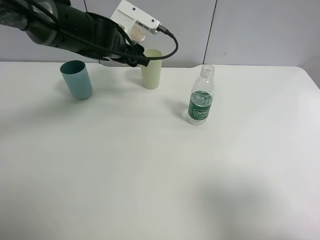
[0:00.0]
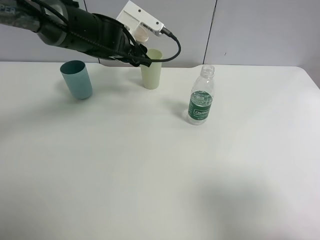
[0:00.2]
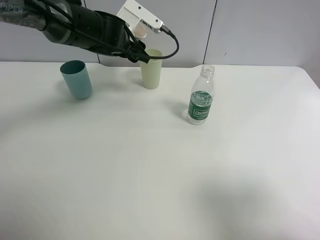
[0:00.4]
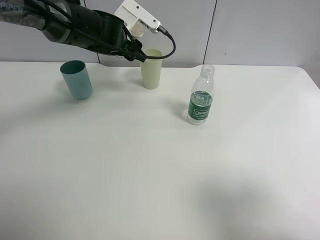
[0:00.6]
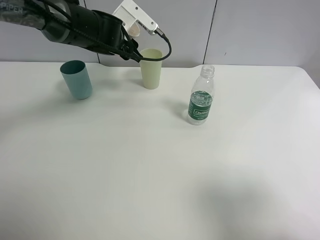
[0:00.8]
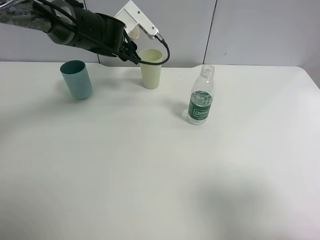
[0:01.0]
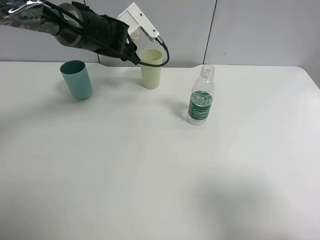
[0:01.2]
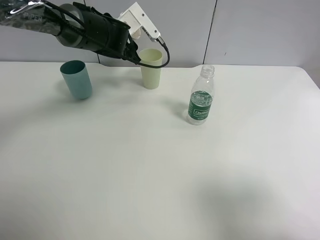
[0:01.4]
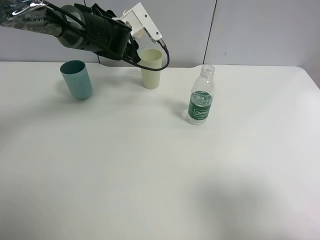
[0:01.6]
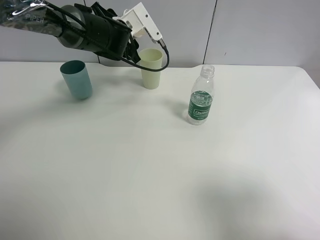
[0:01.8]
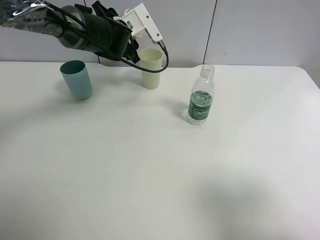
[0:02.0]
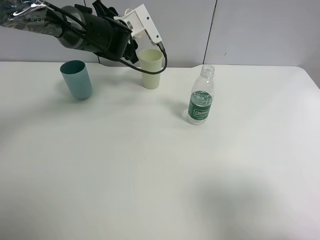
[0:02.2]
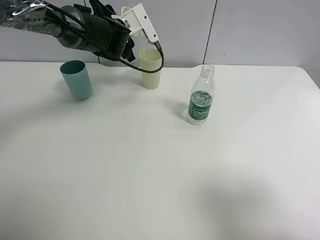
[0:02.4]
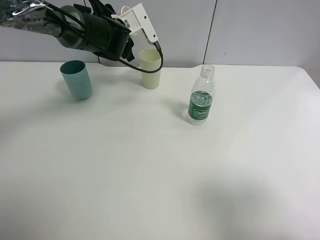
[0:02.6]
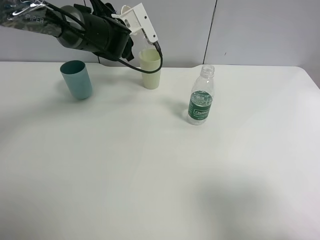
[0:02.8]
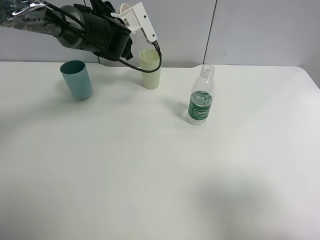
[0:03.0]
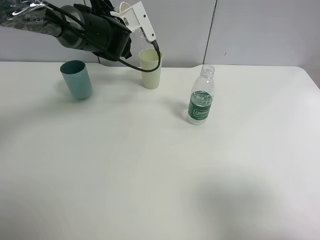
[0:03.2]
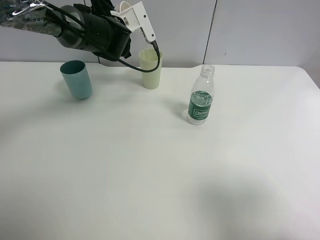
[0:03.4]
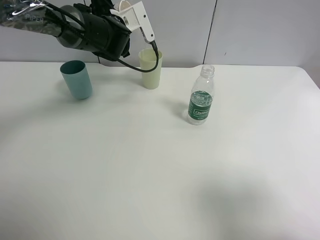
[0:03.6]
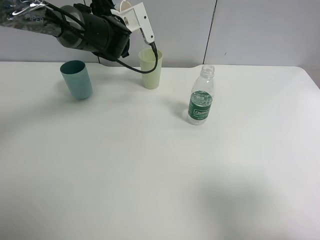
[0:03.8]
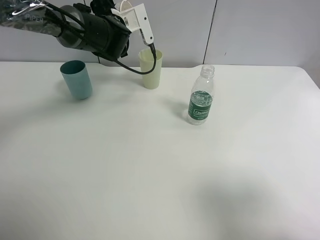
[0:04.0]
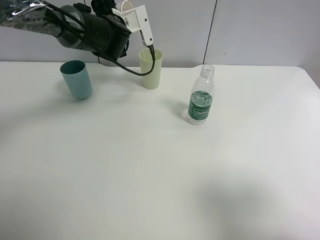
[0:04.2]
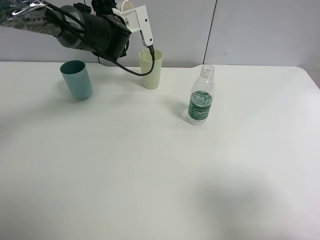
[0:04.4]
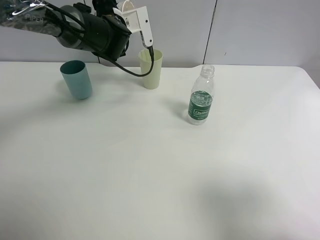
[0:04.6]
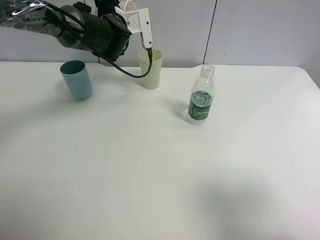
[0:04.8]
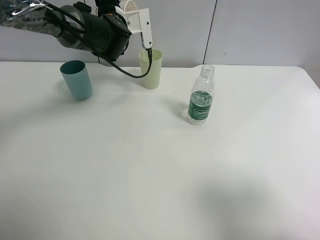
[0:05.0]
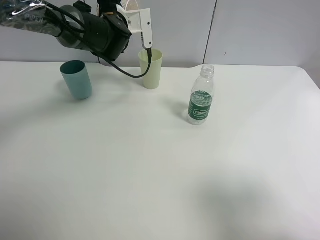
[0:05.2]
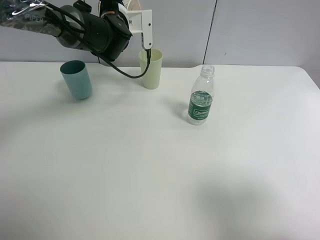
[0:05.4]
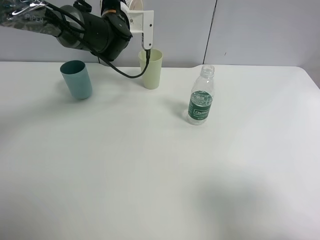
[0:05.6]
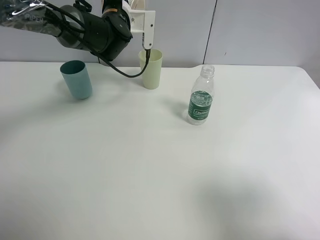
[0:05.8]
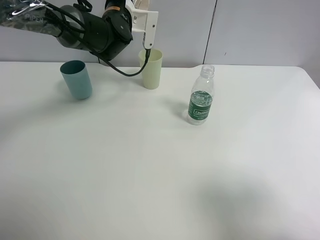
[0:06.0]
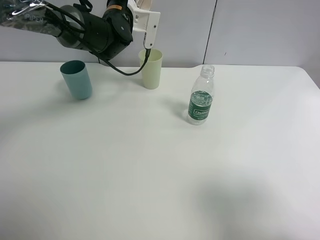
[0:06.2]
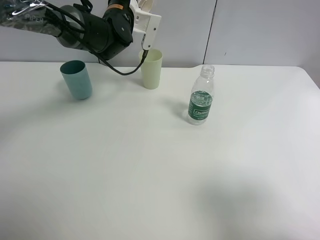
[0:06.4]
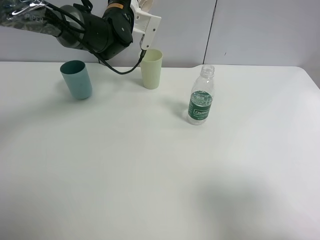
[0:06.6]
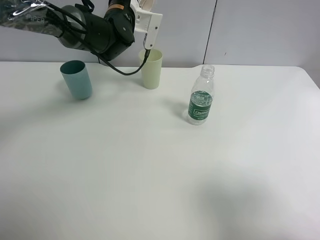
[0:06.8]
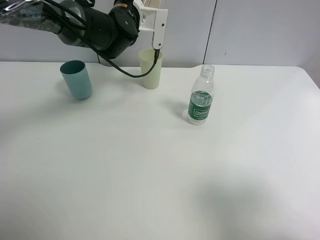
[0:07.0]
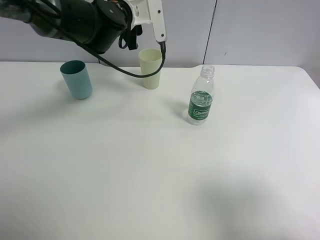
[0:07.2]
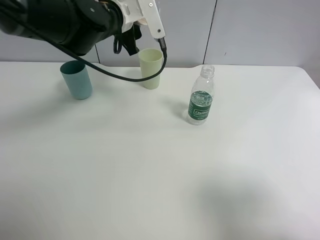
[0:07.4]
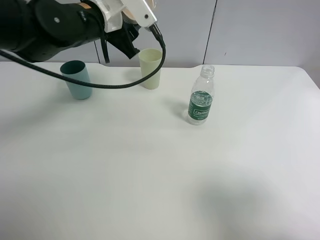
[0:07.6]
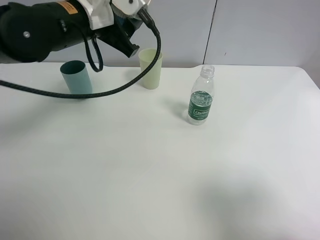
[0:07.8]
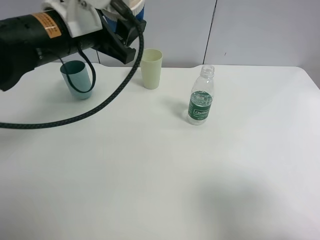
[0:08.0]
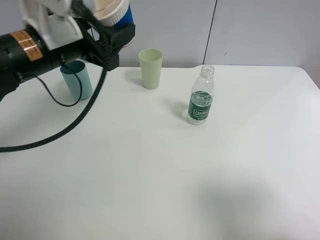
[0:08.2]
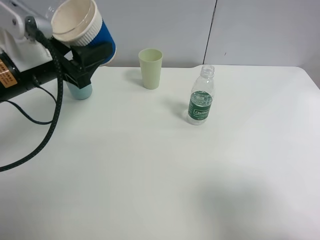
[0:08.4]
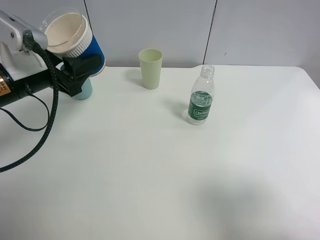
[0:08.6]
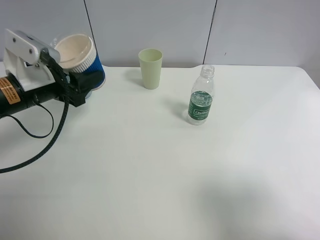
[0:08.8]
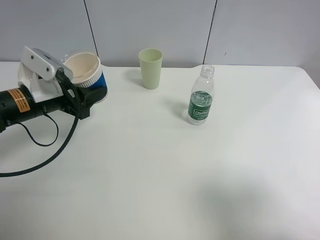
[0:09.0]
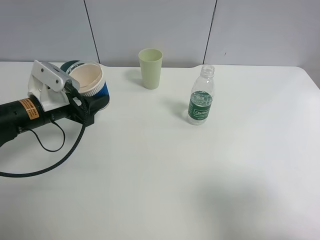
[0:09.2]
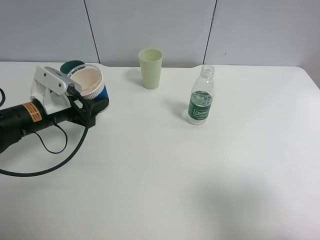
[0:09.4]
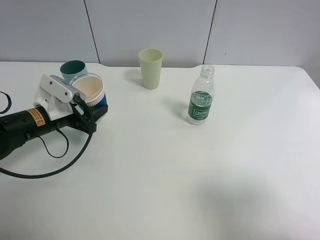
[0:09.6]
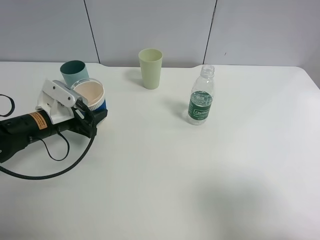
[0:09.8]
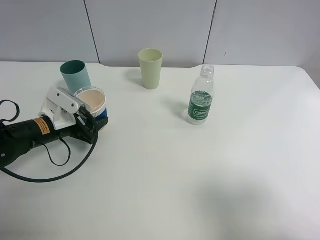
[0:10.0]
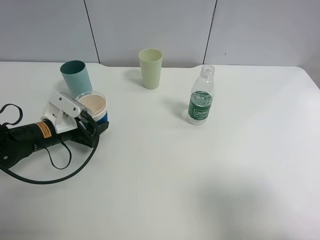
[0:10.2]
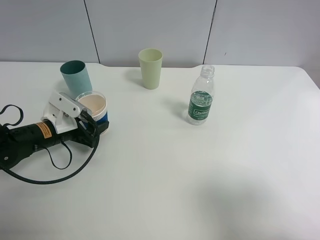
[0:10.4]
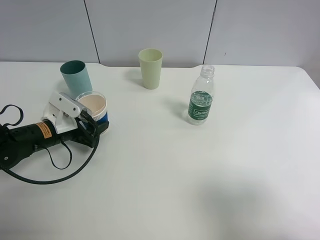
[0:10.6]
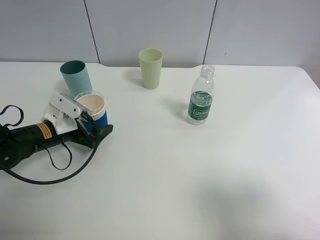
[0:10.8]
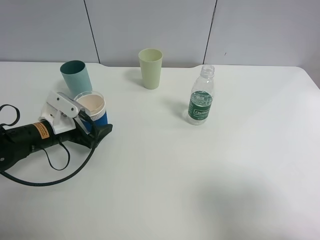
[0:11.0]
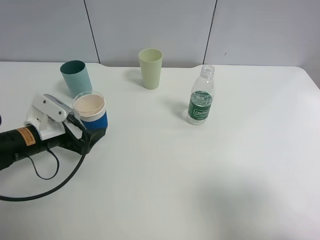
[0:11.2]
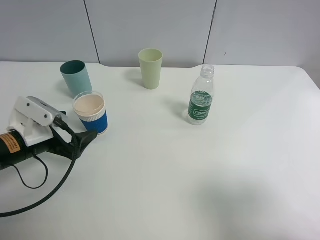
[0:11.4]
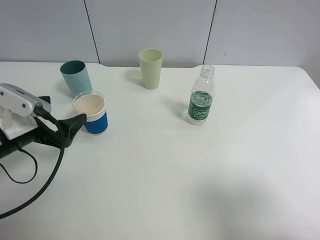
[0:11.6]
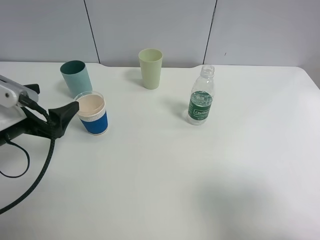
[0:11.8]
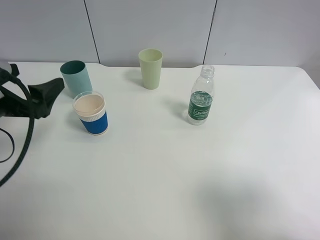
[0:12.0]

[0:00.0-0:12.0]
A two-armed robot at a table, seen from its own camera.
Task of the whole recording: use a clamp to hold the bottle of the drink, pour the beverage into a random cup, then clamp the cup containing the drink and pour the drink into another random cup.
Step, 0:00.0 to 0:07.2: Pour the water into the green plastic cup with left gripper.
Step, 0:07.4 to 0:11.0: Place the paper cup on the table with left gripper.
0:01.6 to 0:03.0: There are only small adjustments of the grippers.
0:03.0 to 0:04.4: The grippers make only small movements.
0:06.0 to 0:07.6: The left gripper moves backward, roughly 10 cm.
0:07.6 to 0:09.0: The left gripper heads downward, to the left and backward, covering about 15 cm.
0:09.0 to 0:10.4: The left gripper travels downward by roughly 10 cm.
0:10.4 to 0:12.0: The left gripper goes about 15 cm upward and backward, and opens up.

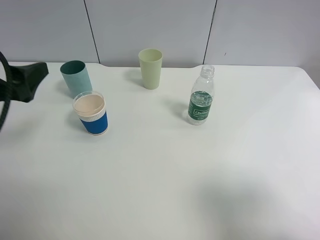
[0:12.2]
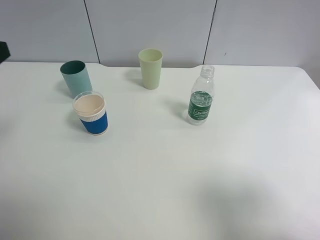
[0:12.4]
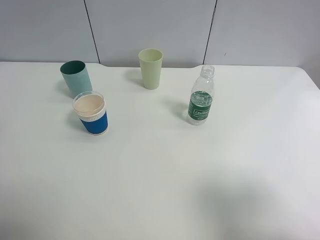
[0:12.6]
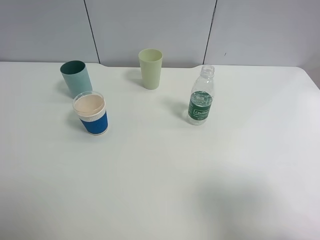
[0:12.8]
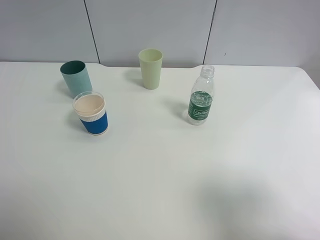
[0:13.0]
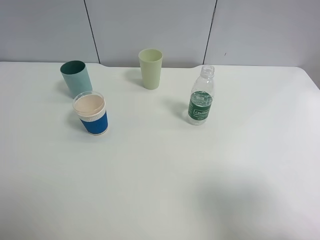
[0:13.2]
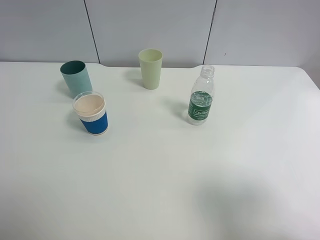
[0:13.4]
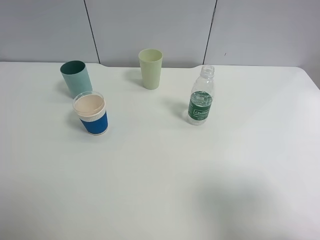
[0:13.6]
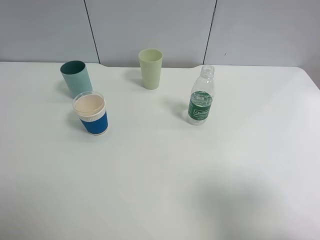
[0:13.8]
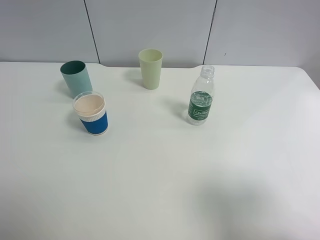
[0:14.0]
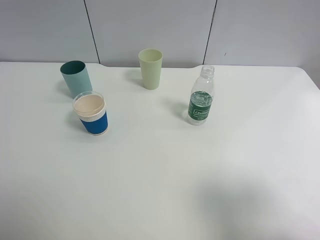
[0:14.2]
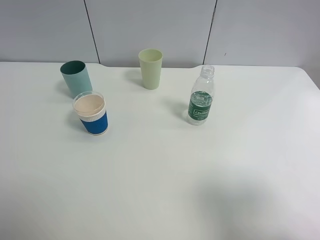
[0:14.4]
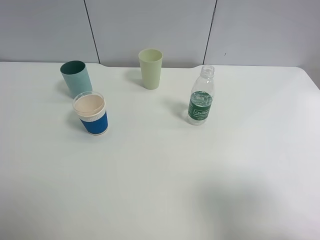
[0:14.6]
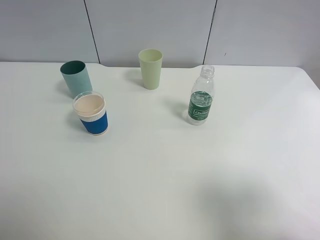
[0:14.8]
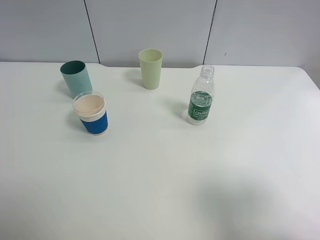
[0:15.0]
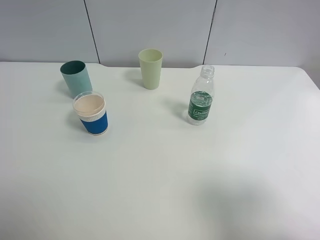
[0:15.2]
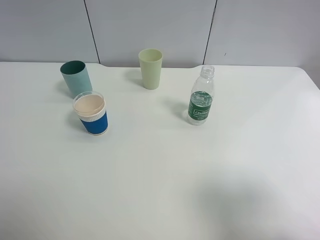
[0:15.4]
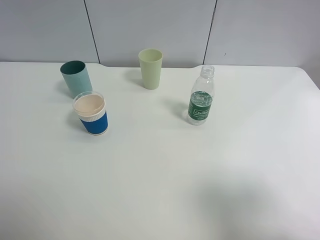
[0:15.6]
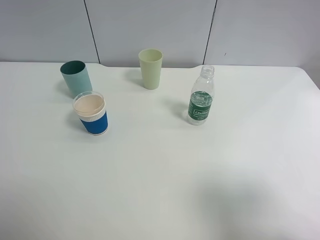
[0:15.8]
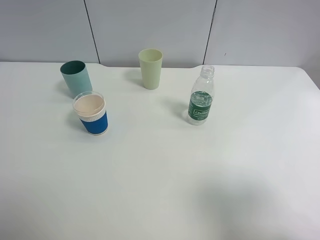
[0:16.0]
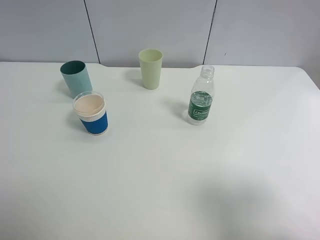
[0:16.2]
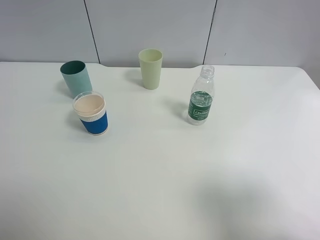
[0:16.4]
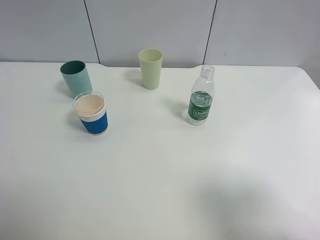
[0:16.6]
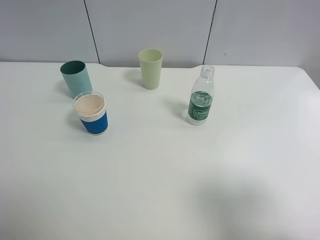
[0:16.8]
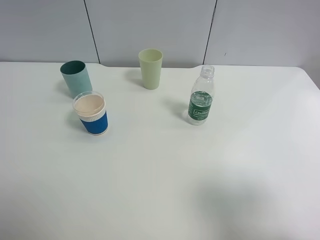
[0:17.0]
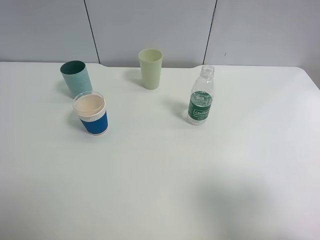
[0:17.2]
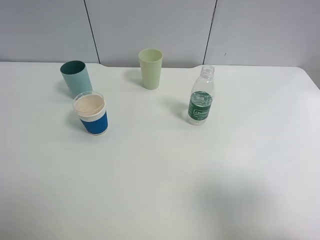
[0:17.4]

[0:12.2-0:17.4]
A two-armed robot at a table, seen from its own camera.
Task of the whole recording: use a clamp to hold the bottle of the drink, pour the beverage into a random cup, then clamp the cup containing the drink and pour the drink into another random cup.
0:12.2 to 0:14.0: The left gripper travels backward by approximately 20 cm.
0:14.0 to 0:17.4: Both grippers stay put.

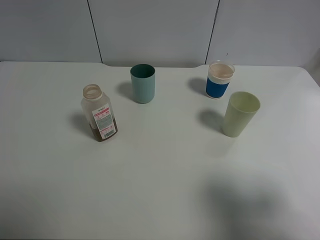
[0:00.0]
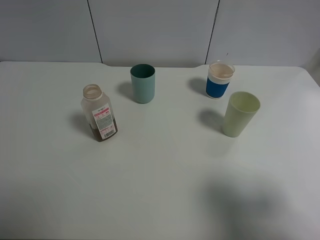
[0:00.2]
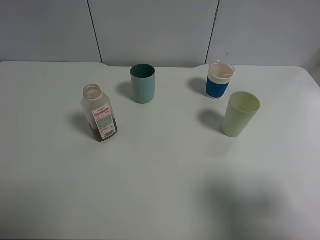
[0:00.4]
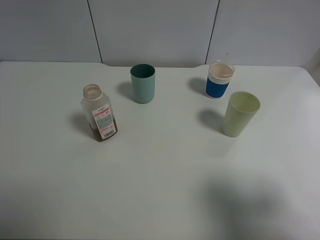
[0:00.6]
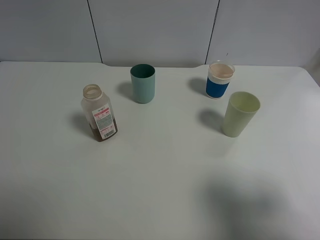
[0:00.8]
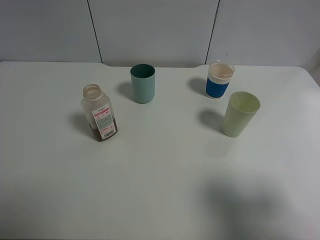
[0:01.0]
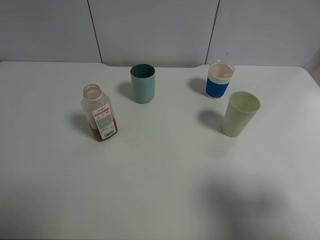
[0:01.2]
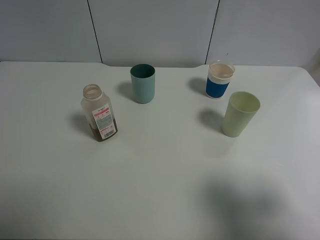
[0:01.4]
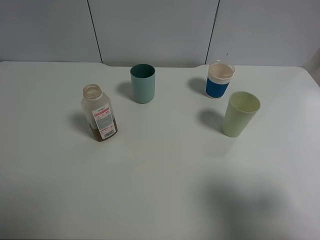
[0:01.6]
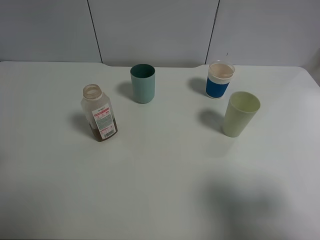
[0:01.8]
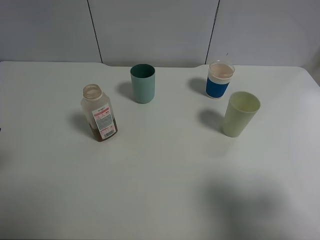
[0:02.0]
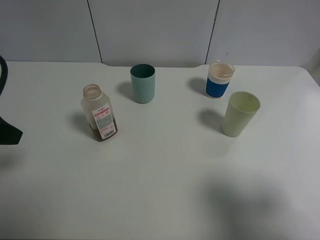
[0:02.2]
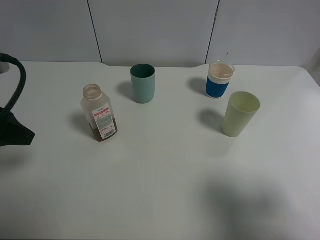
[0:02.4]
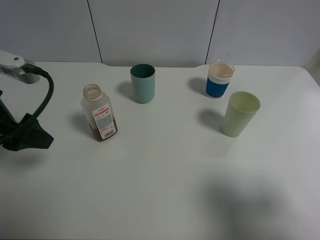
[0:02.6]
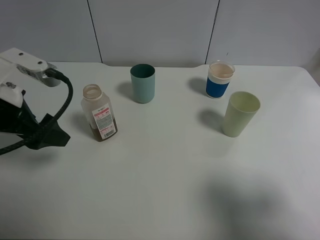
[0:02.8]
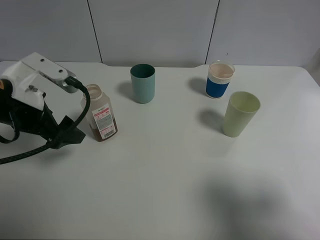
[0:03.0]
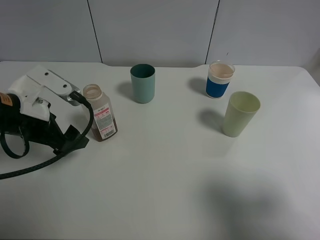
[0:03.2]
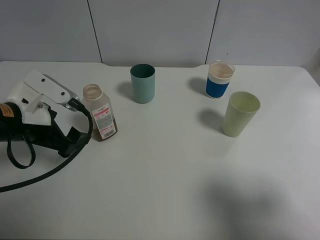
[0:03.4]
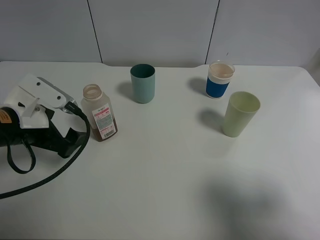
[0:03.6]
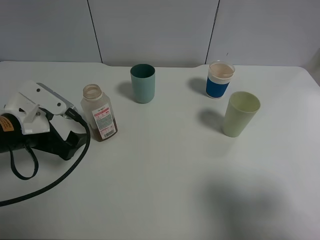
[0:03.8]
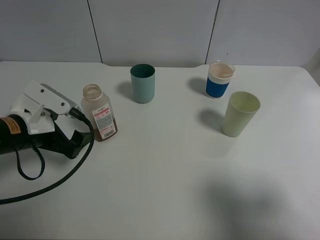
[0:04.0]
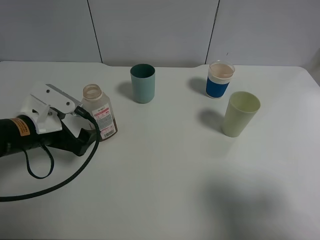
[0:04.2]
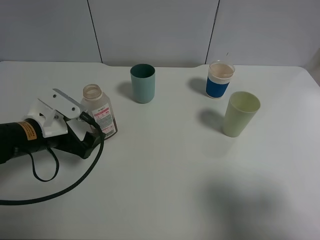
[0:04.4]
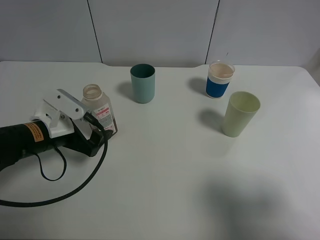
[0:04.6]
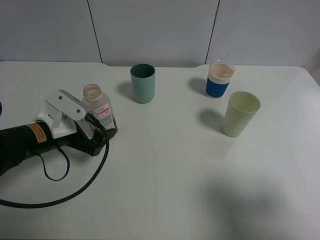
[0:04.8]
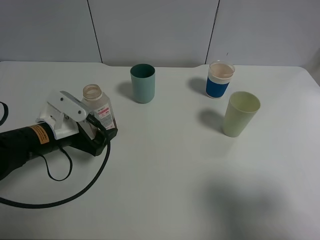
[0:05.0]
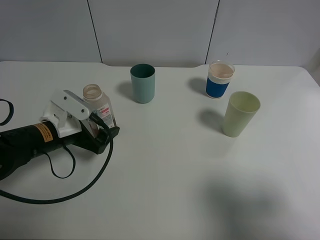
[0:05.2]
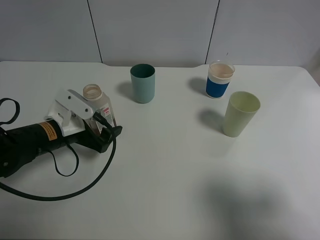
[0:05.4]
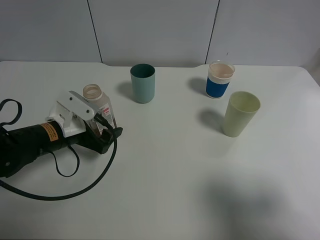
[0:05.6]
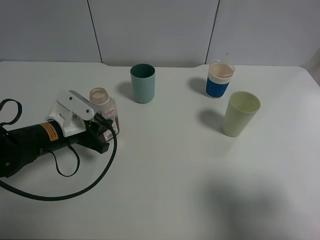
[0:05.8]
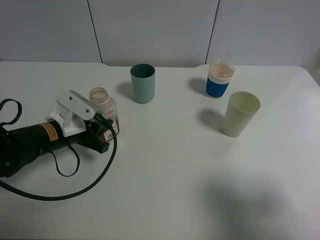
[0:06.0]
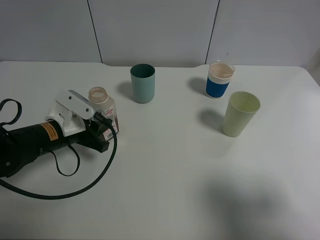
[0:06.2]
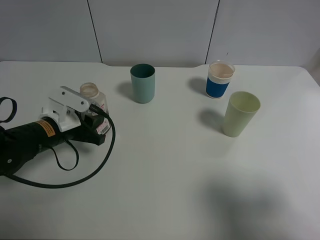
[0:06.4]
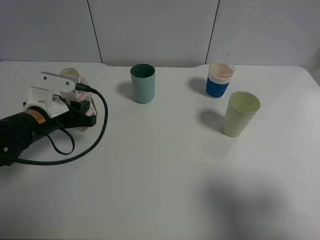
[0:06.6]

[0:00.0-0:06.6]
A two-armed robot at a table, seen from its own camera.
Task of the whole recording: use a clamp to hold the bottle of the drink, pour the beverage into a random cup, then clamp the cup containing the drink and pour the drink into another random cup.
0:01.6 to 0:03.2: The left gripper moves forward, downward and to the right, some 20 cm.
0:03.2 to 0:05.0: The left gripper moves downward, approximately 10 cm.
0:05.0 to 0:06.6: The left gripper closes up.
